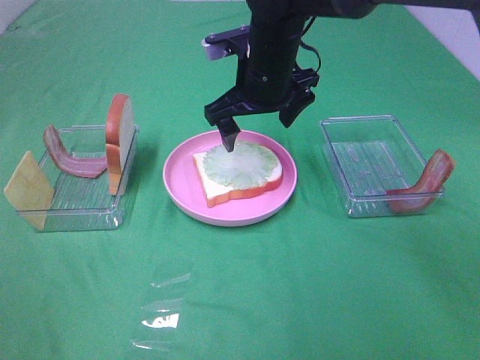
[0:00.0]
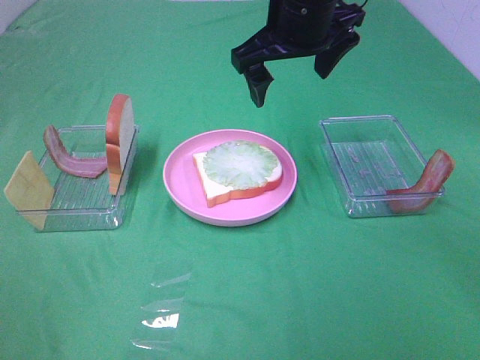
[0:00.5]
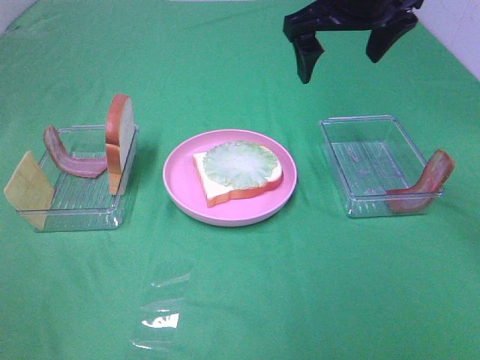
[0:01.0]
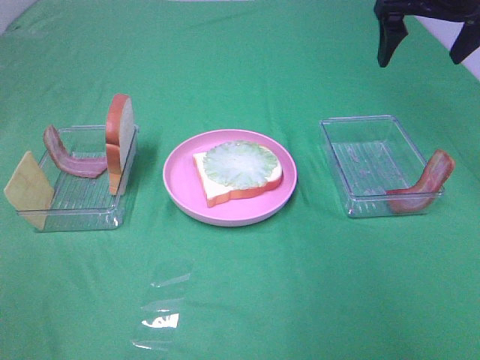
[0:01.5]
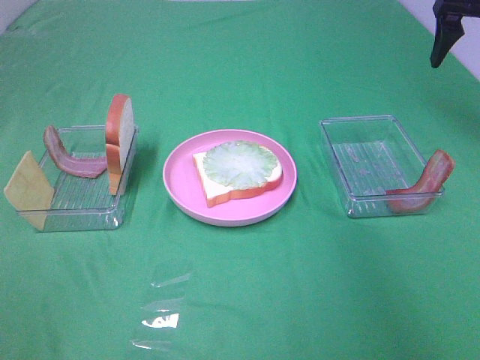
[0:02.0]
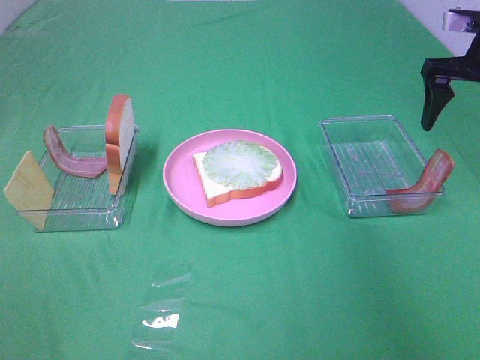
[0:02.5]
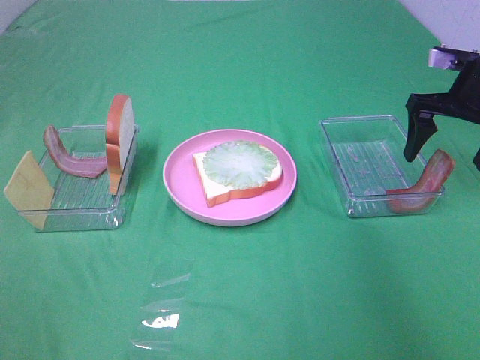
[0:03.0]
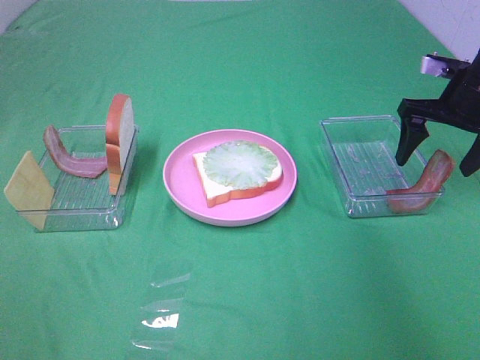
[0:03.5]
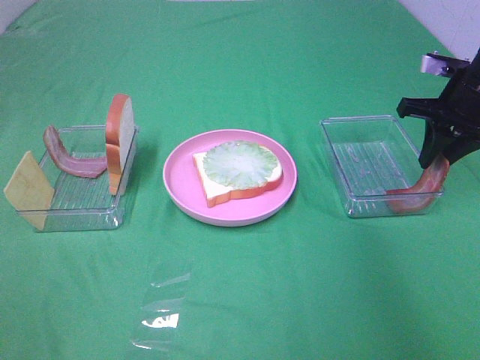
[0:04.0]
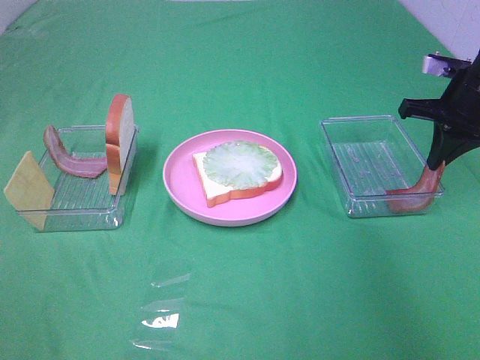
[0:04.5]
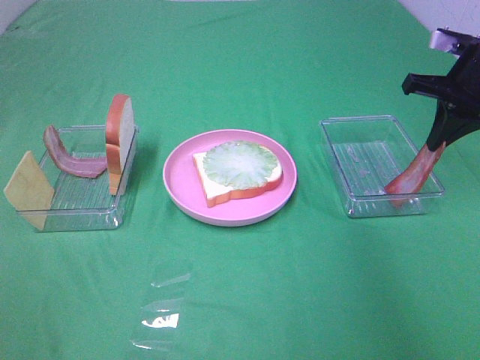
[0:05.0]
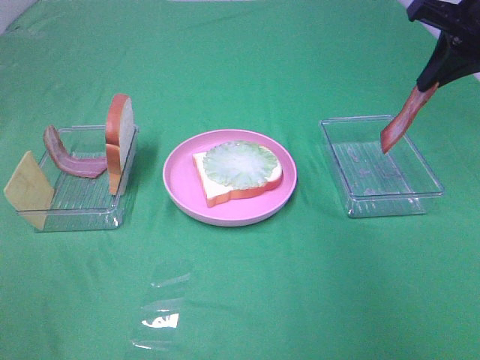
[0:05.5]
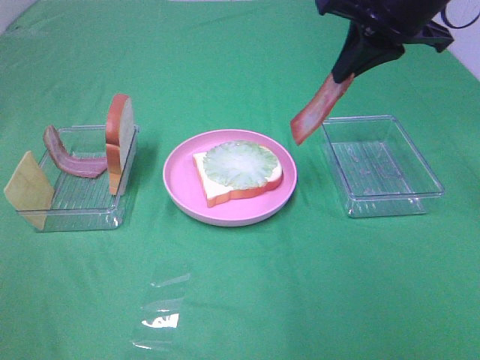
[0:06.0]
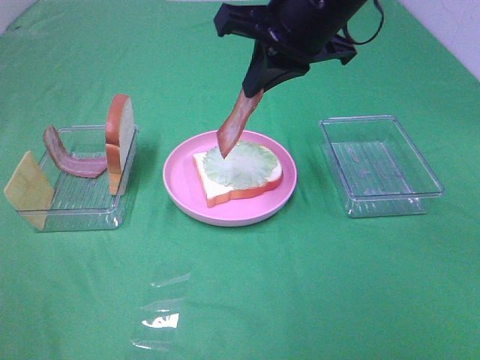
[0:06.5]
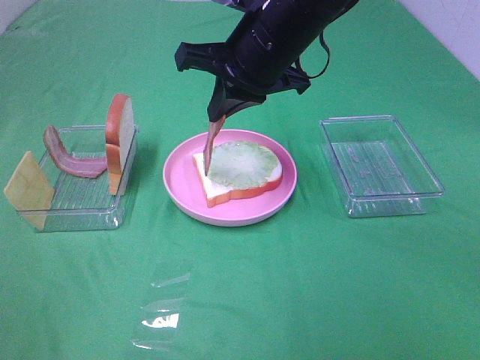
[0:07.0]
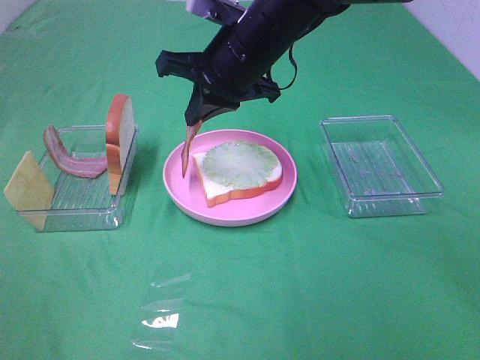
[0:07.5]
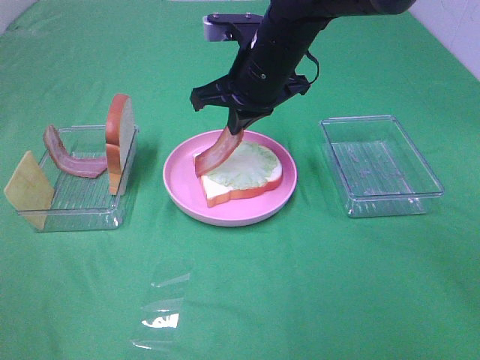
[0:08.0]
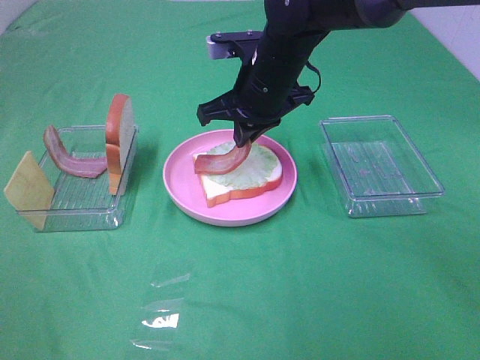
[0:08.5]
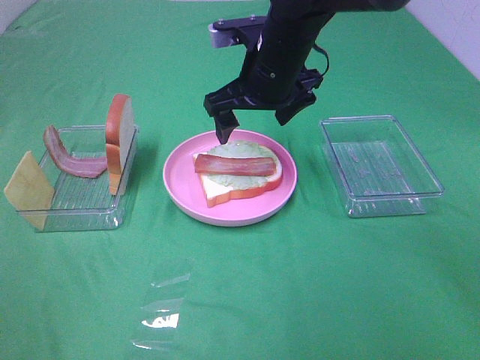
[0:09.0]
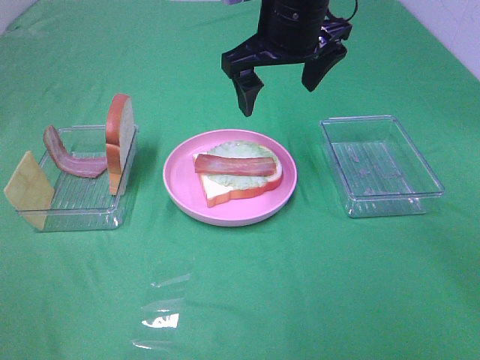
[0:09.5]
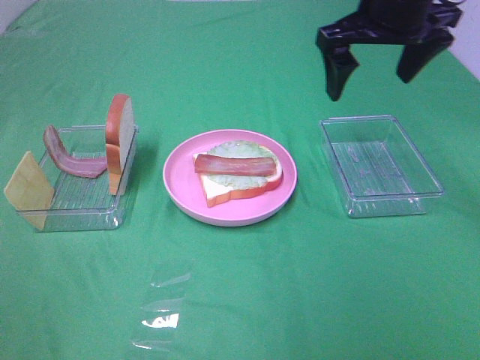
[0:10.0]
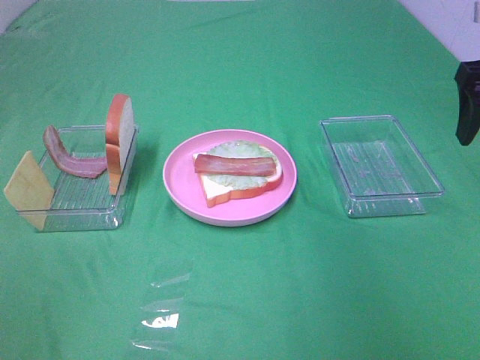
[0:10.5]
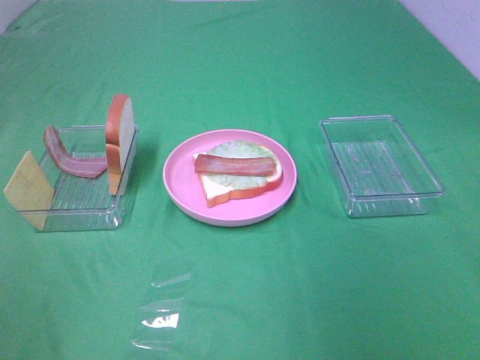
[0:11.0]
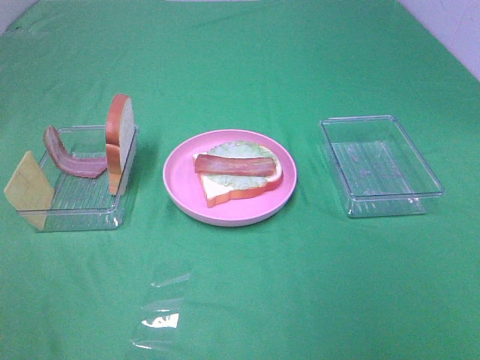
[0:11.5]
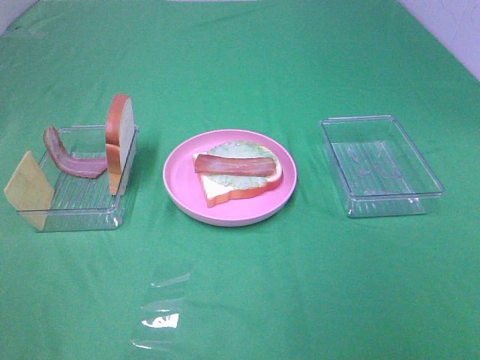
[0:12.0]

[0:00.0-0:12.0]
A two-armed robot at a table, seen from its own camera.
Task of the whole recording: Make sandwiches.
Step, 0:00.0 to 0:04.0: Right hand:grab the bacon.
Step, 0:04.5 to 0:08.5: Right hand:place bacon on lettuce slice.
0:00.0 to 0:02.0: The right gripper is displaced to the right by approximately 30 cm.
0:02.0 to 0:04.0: The right gripper moves downward, approximately 10 cm, and closes up.
0:04.0 to 0:06.0: The right gripper is displaced to the left and upward by about 20 cm.
0:06.0 to 0:08.0: The right gripper is displaced to the left and downward by about 15 cm.
0:08.0 to 0:10.0: The right gripper moves to the right and upward, roughly 15 cm, and opens.
0:10.0 to 0:12.0: The right gripper heads backward, covering some 40 cm.

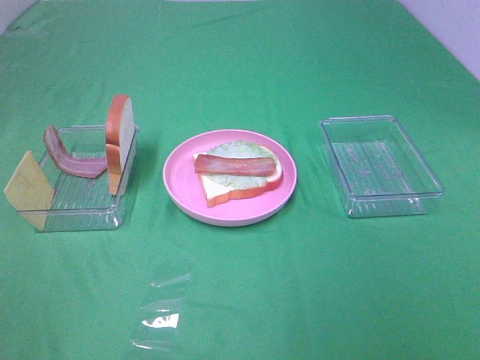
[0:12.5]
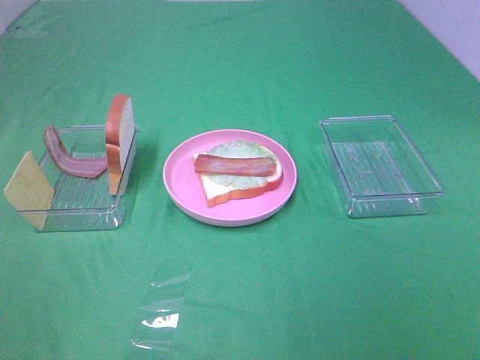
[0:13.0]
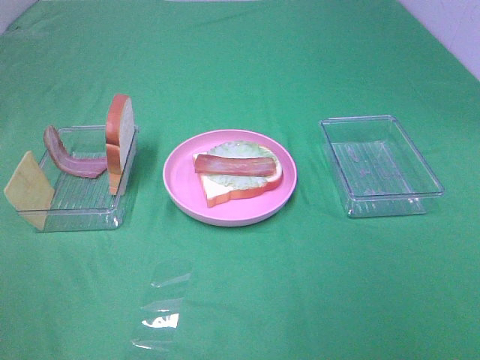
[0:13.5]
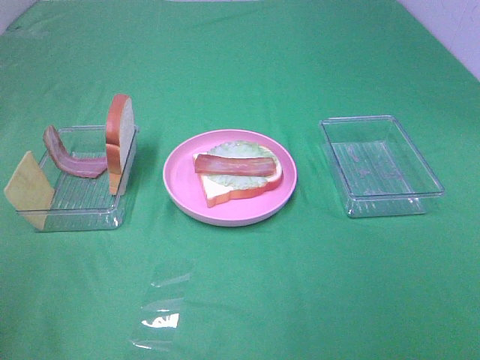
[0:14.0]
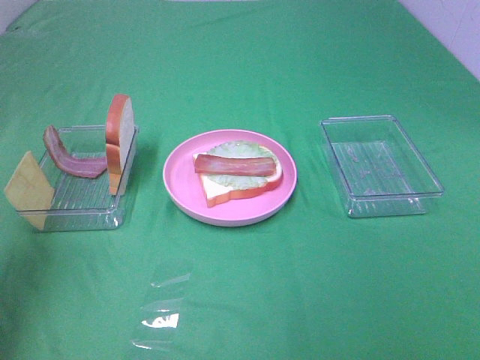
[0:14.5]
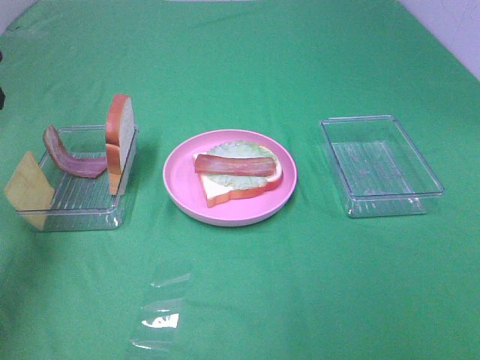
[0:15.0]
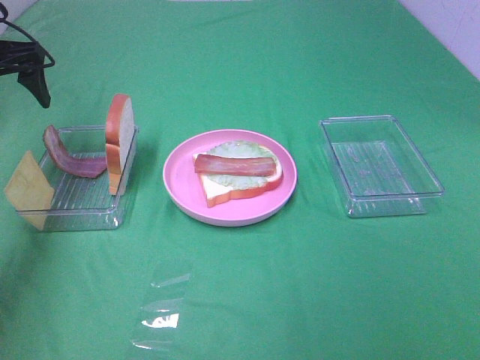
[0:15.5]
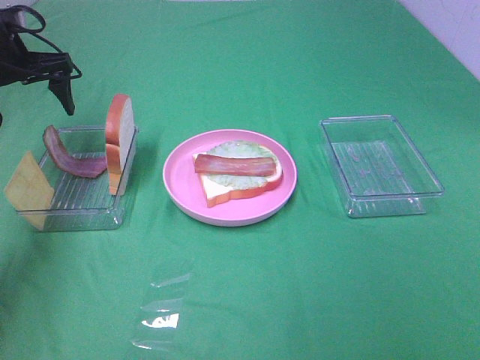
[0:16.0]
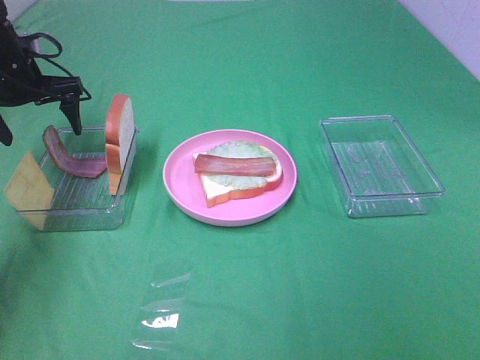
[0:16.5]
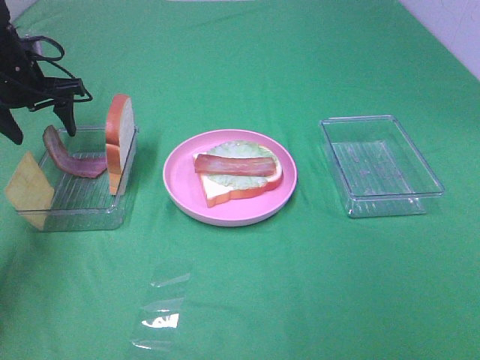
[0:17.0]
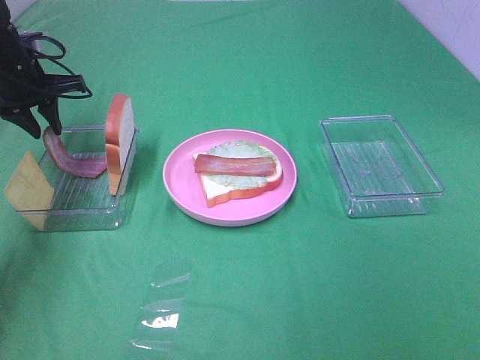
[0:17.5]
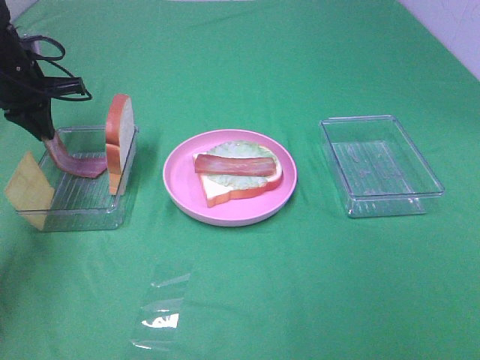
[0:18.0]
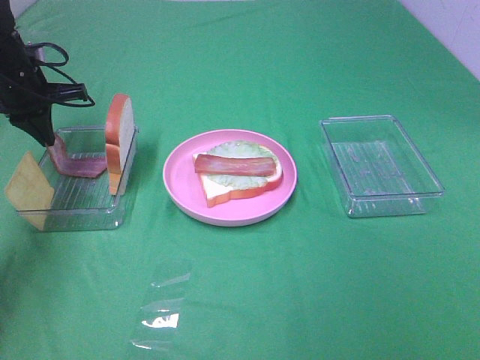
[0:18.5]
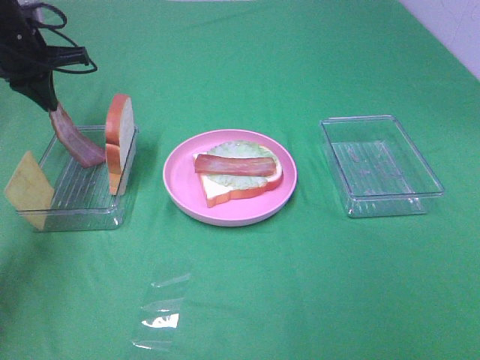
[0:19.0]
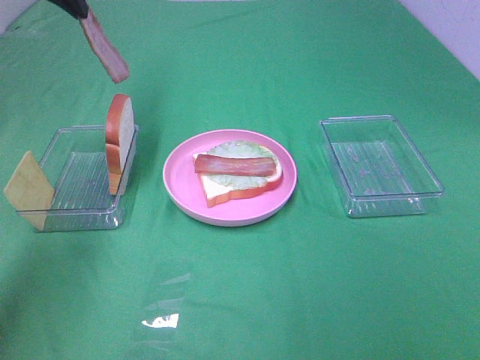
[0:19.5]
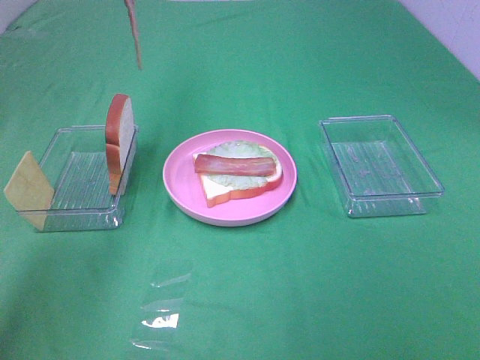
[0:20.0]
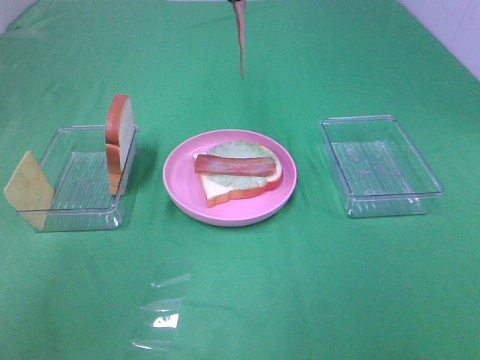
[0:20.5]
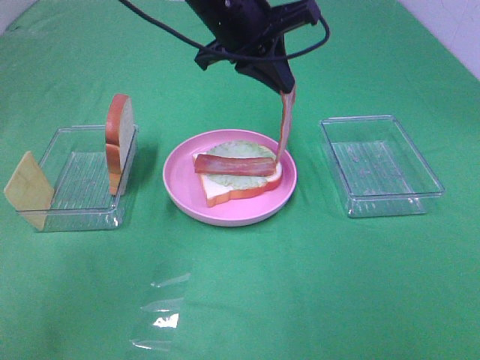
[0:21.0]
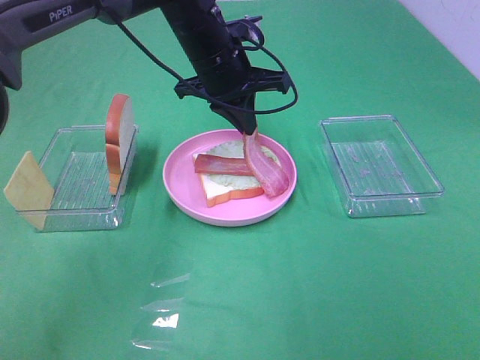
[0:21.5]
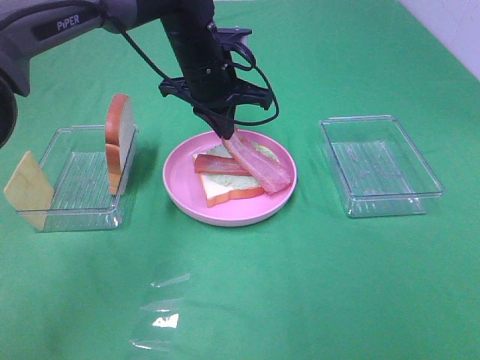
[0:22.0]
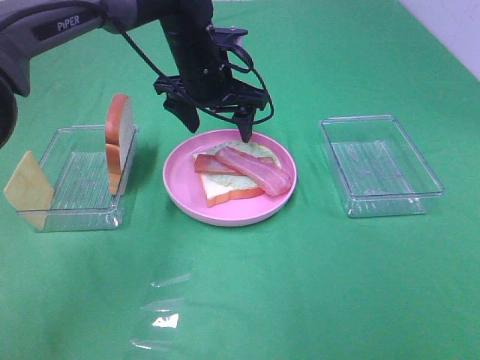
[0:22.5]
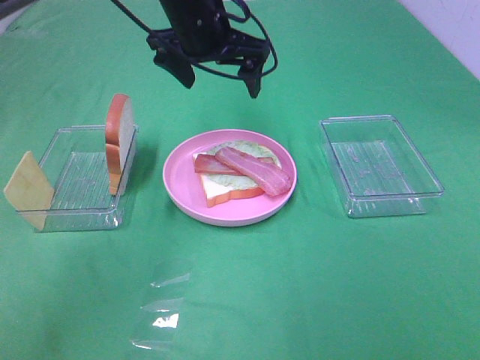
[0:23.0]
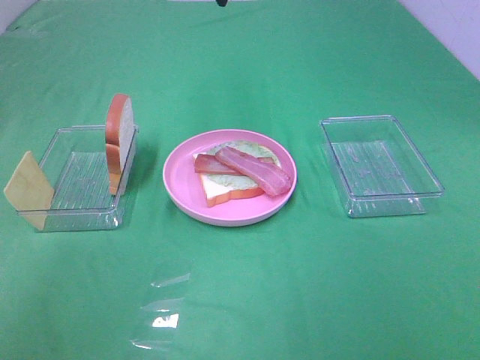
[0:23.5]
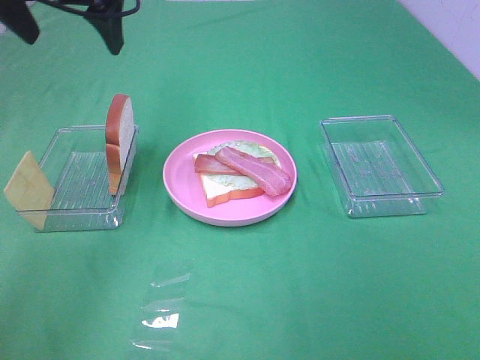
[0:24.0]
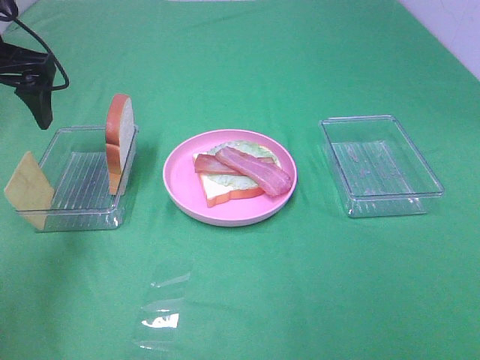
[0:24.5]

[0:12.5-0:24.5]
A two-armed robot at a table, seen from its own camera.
Task of the whole recording: Make sandwiches.
Step, 0:12.5 to 0:18.0: Left hand:grab the bacon.
Step, 0:18.5 to 0:22.0: Left hand:place bacon on bacon.
0:12.5 to 0:14.5: The left gripper heads forward, covering about 20 cm.
0:14.5 to 0:16.5: The left gripper goes some 30 cm forward and downward.
0:16.5 to 0:18.5: The left gripper closes.
0:18.5 to 0:20.5: The left gripper travels to the right and upward by roughly 30 cm.
0:20.5 to 0:22.5: The left gripper travels downward by approximately 15 cm, and opens up.
0:22.5 to 0:24.5: The left gripper is displaced to the left by roughly 20 cm.

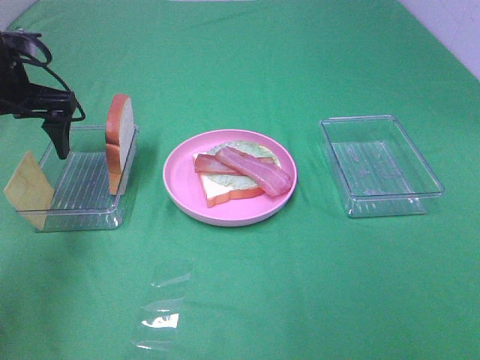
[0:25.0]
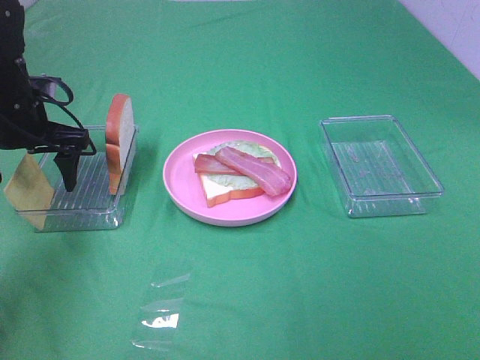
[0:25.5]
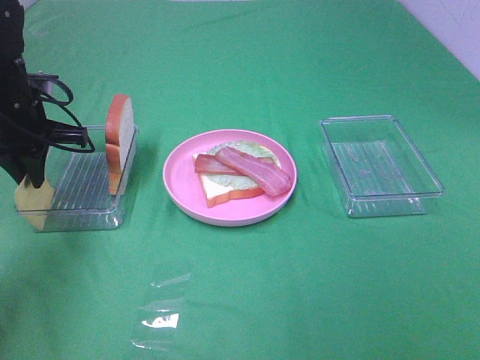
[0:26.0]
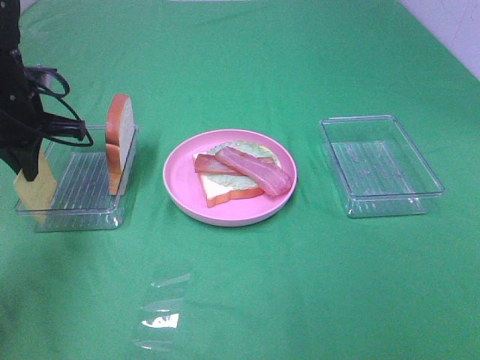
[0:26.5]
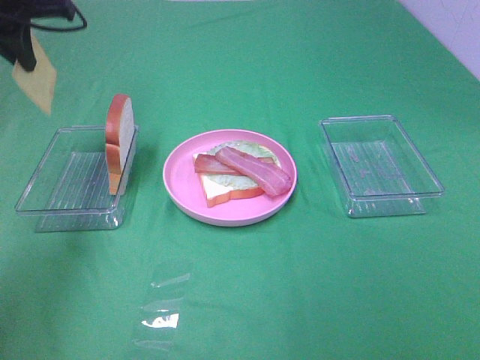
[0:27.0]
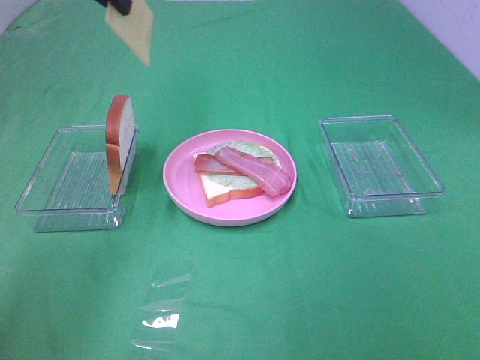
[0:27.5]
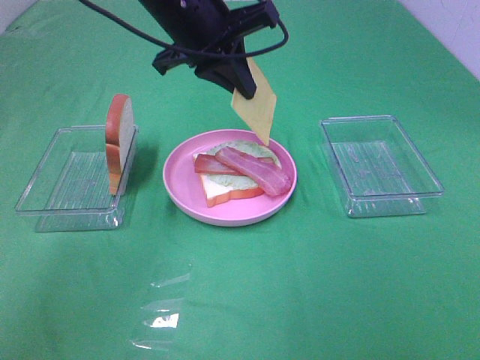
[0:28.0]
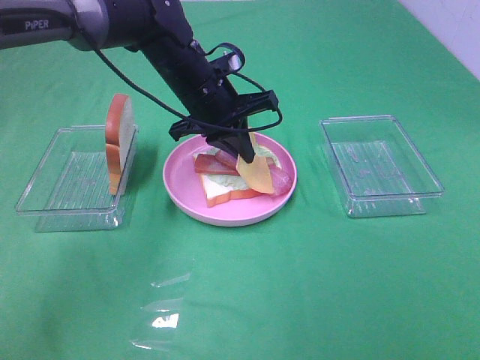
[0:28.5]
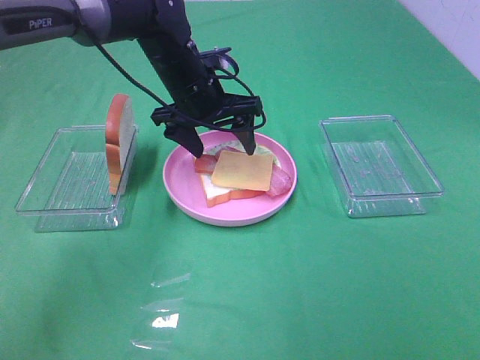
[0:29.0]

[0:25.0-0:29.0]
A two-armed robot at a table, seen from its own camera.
Task of the whole recording: Make sandwiches.
Step, 0:26.5 to 0:29.0: Left hand:place the cheese slice on top of the bacon.
0:25.0 to 0:27.0: The left gripper goes some 10 cm upward, and closes its fingers.
0:27.0 to 0:29.0: The left gripper shifts some 25 cm to the right and downward, and opens.
